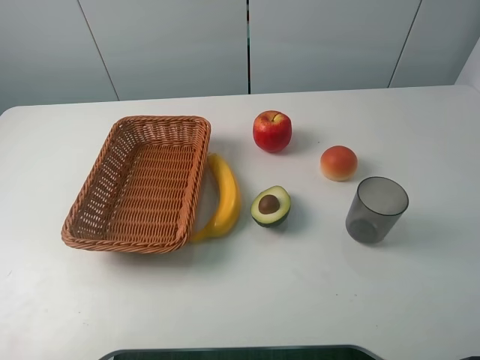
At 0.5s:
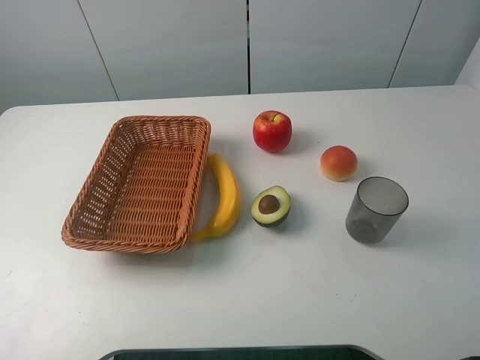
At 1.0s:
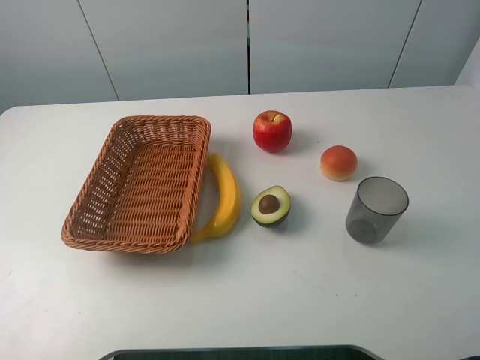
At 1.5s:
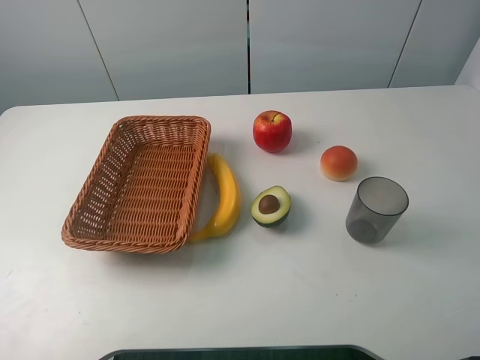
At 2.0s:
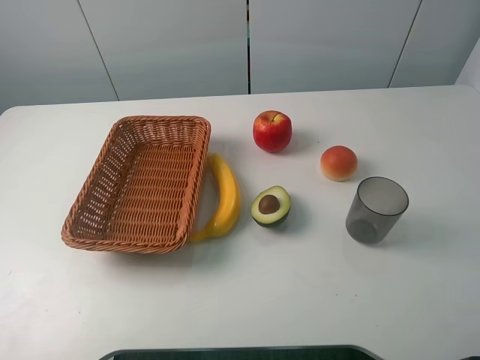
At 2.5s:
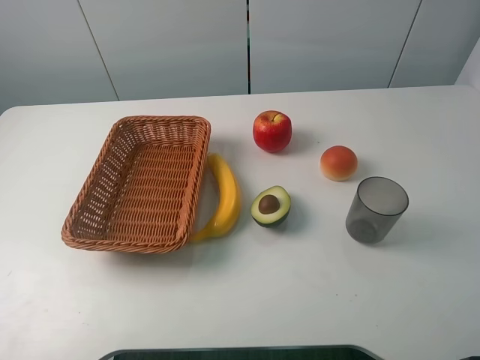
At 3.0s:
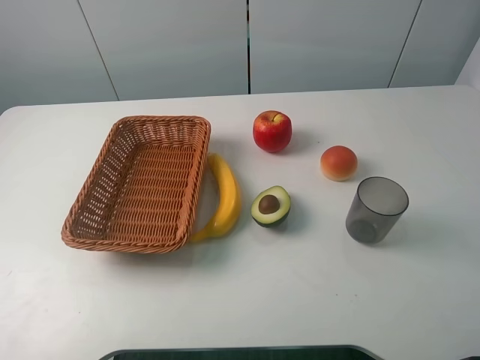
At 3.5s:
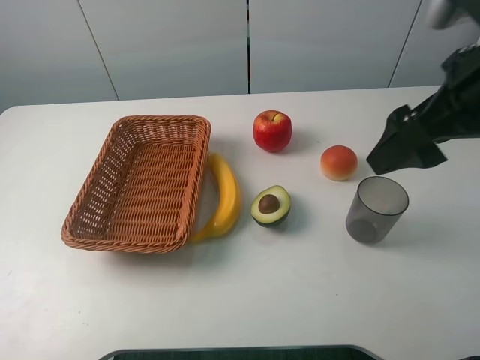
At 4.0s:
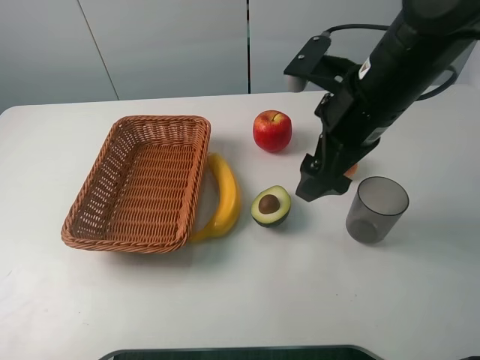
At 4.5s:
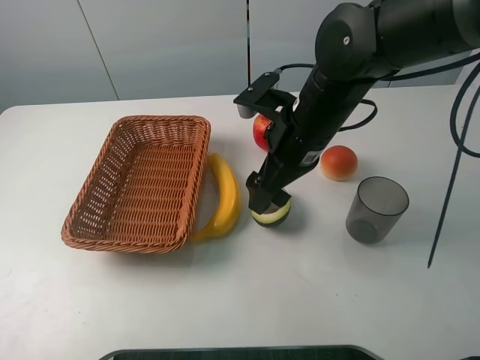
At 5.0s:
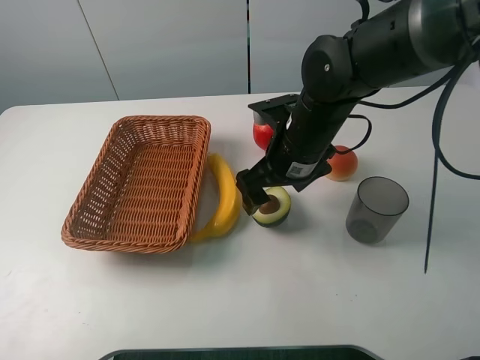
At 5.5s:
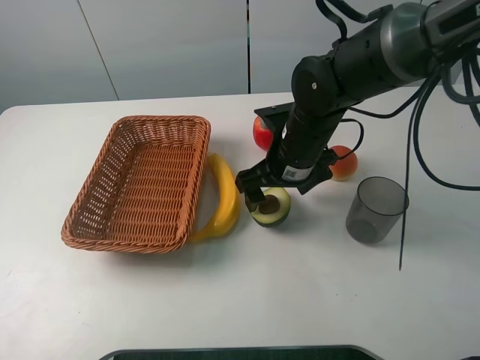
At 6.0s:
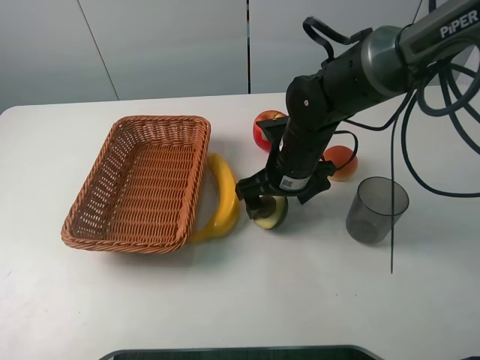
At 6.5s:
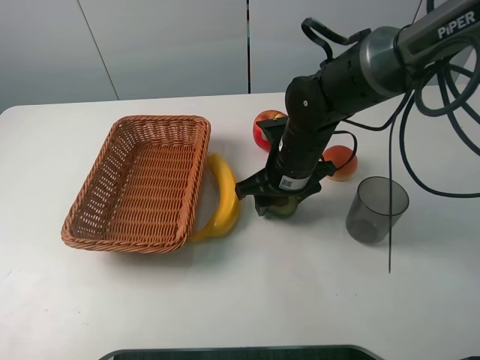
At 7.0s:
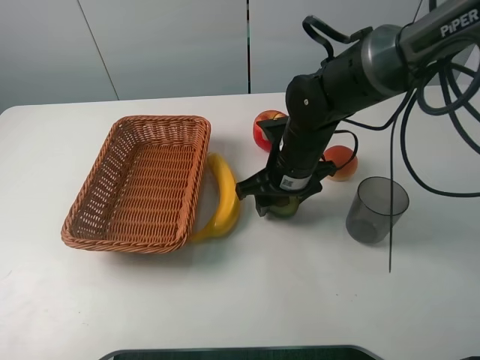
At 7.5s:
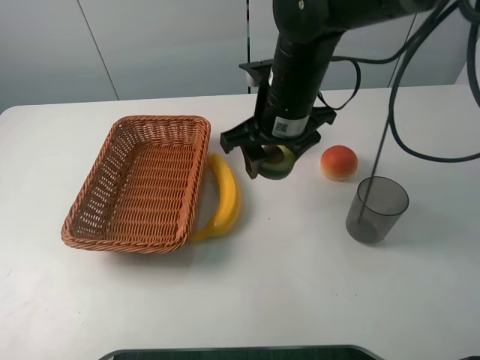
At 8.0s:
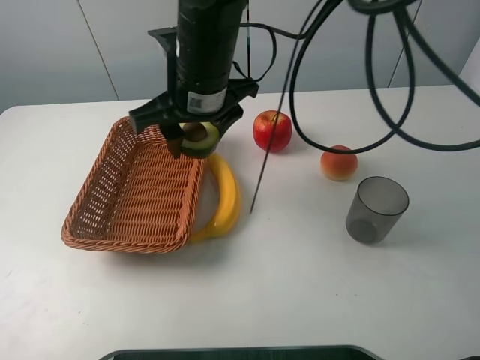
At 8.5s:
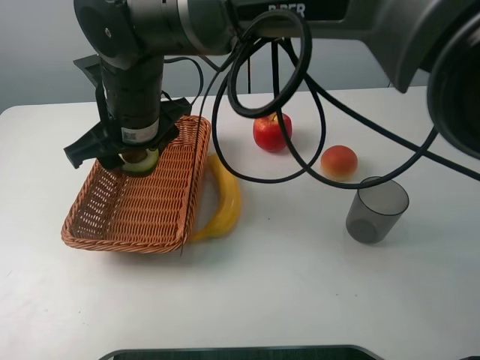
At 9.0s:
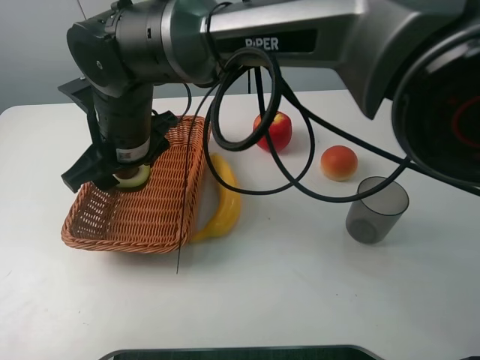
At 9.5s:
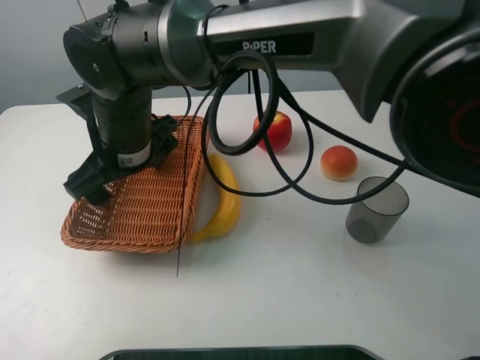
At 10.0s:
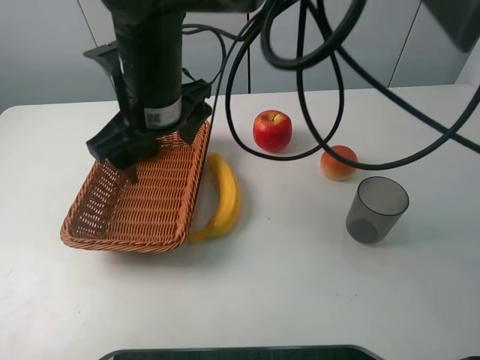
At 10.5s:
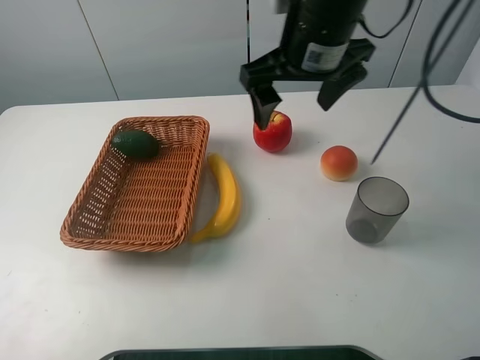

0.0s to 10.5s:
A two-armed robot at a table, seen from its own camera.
Task of the whole recording: randomly pick up an item from the table and put it in the basket.
Step, 0.0s to 6.0s: Grasp the avocado with the right gripper.
Step, 6.5s to 9.5s: Place the avocado into the basket with the right gripper.
2.0s to 4.0s: The right gripper moves forward, to the left and downward, about 35 cm.
4.0s to 6.5s: The right gripper is displaced downward by some 10 cm, and closes.
6.5s to 8.5s: The right gripper moves to the left and upward, some 20 cm.
8.5s to 10.5s: The right gripper moves to the right, approximately 20 cm, and opens its fingers.

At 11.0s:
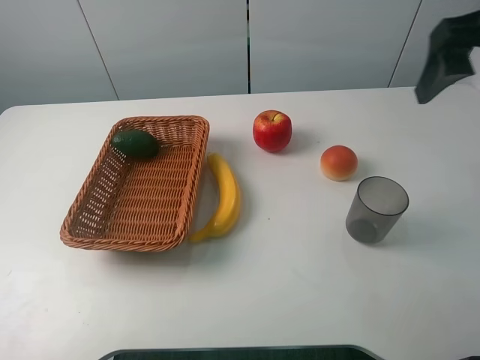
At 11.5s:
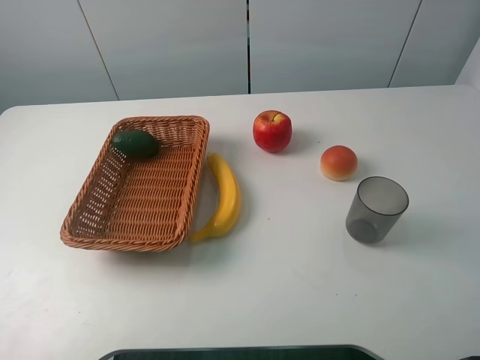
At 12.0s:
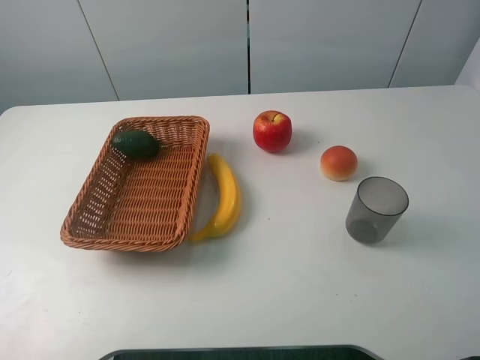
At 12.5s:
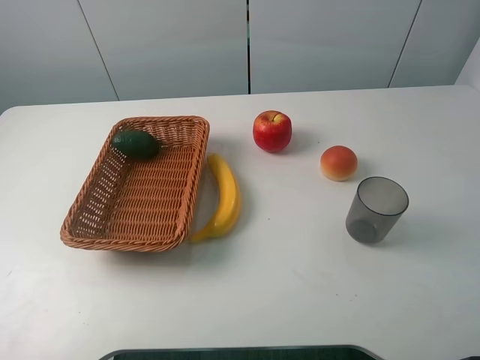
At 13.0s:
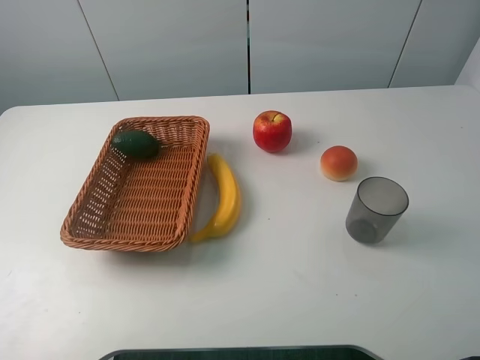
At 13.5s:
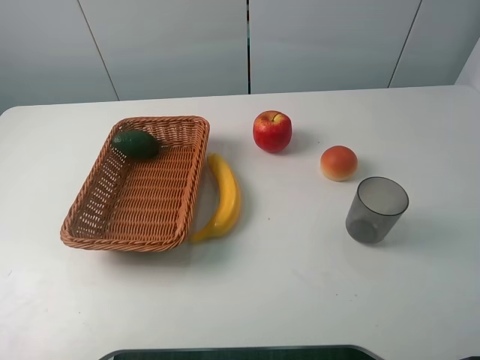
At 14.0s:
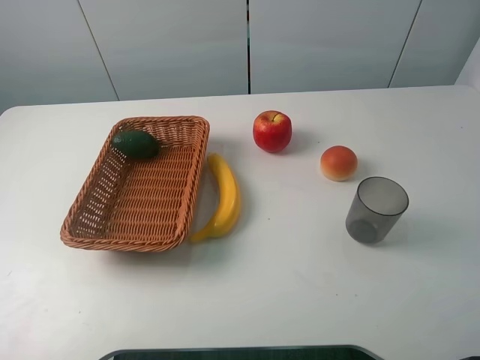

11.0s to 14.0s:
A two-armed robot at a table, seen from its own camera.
Task of the whole recording: randomly pick up an item from the table and put it in the basket.
11.0s to 12.5s: The right gripper moves backward, approximately 25 cm.
12.5s to 14.0s: Neither gripper changes place.
